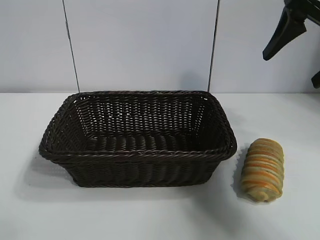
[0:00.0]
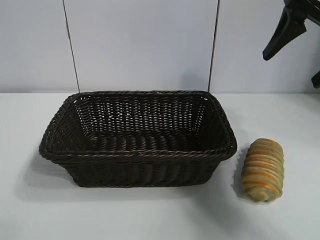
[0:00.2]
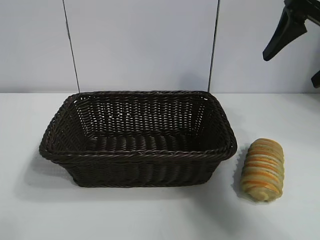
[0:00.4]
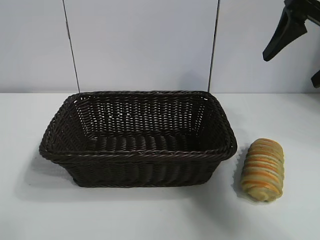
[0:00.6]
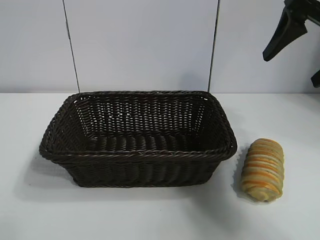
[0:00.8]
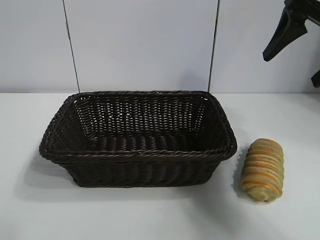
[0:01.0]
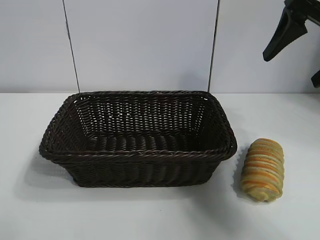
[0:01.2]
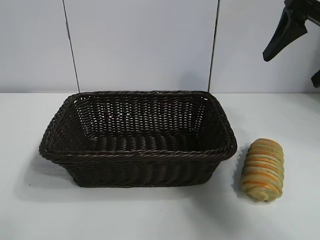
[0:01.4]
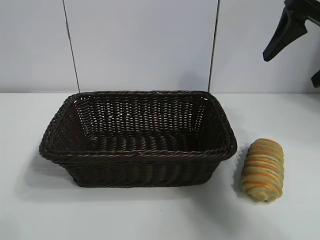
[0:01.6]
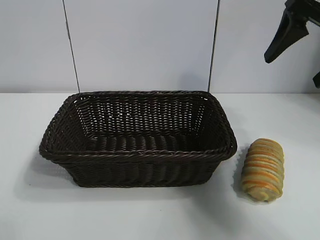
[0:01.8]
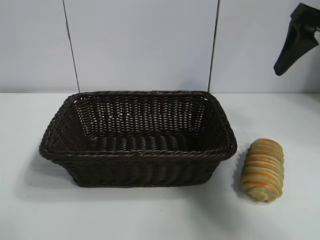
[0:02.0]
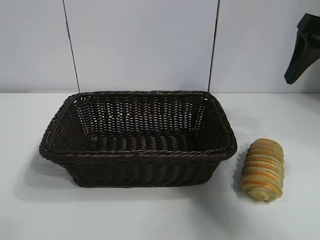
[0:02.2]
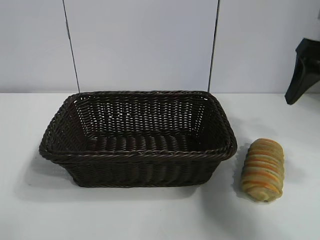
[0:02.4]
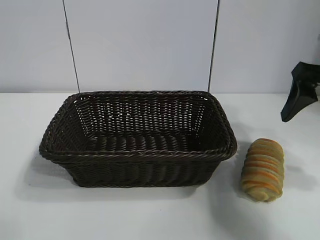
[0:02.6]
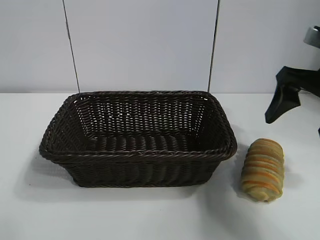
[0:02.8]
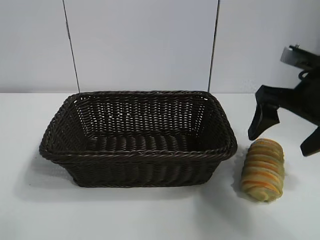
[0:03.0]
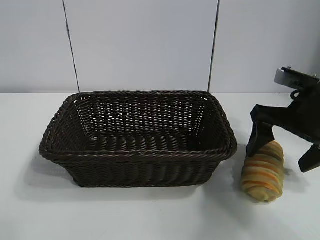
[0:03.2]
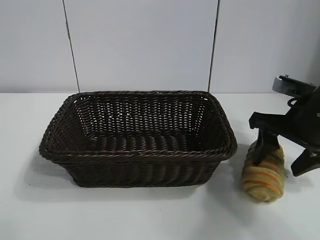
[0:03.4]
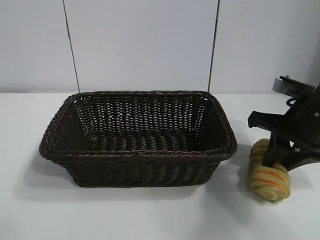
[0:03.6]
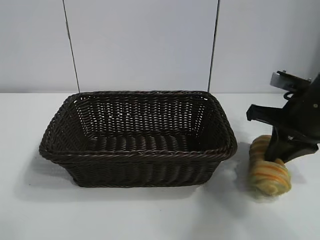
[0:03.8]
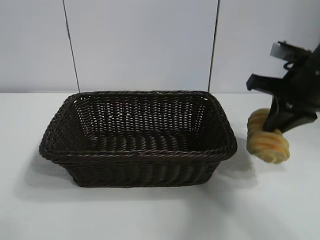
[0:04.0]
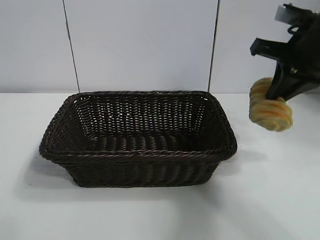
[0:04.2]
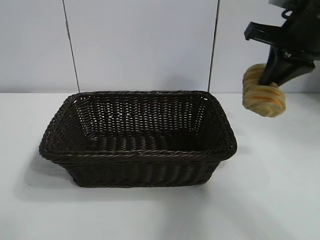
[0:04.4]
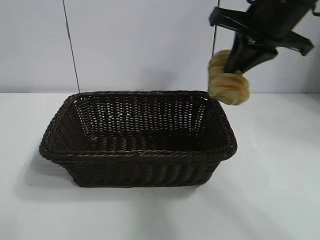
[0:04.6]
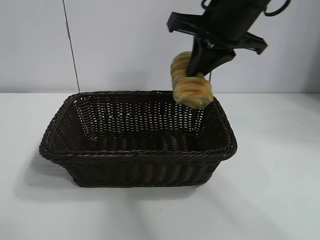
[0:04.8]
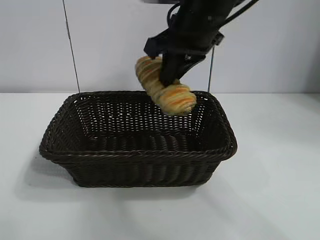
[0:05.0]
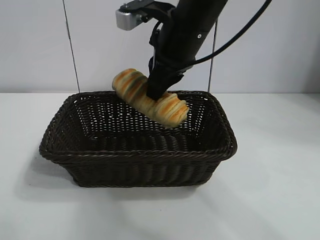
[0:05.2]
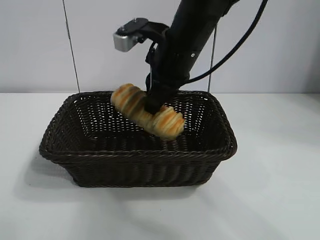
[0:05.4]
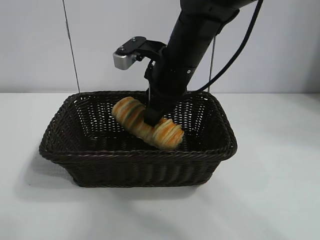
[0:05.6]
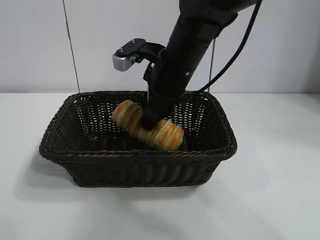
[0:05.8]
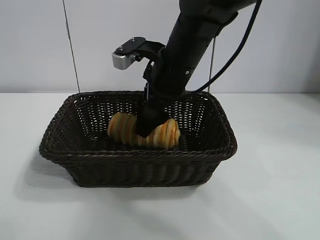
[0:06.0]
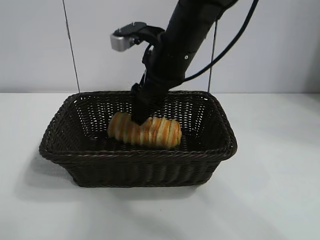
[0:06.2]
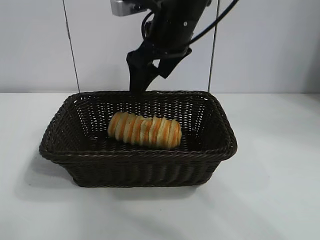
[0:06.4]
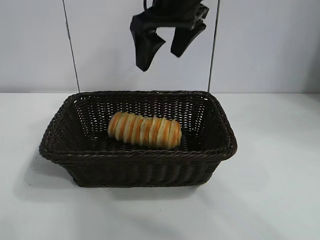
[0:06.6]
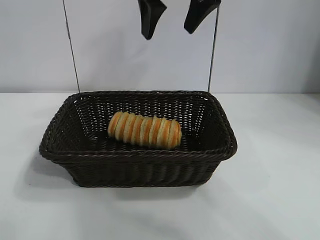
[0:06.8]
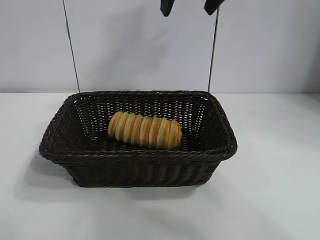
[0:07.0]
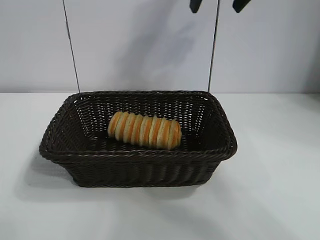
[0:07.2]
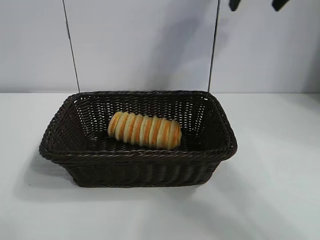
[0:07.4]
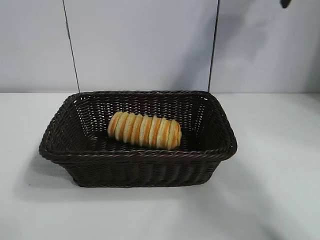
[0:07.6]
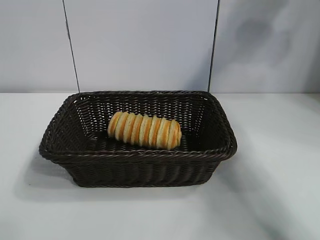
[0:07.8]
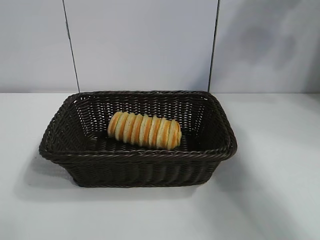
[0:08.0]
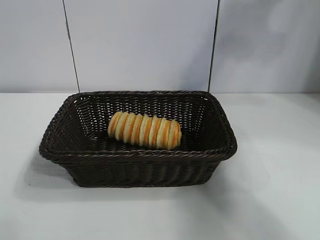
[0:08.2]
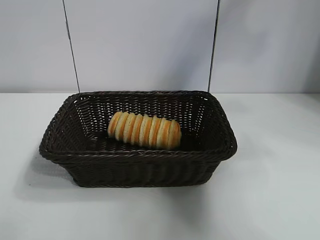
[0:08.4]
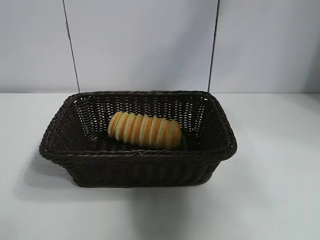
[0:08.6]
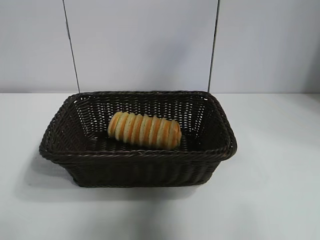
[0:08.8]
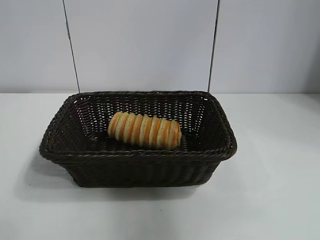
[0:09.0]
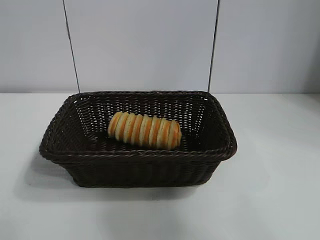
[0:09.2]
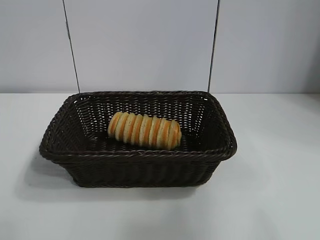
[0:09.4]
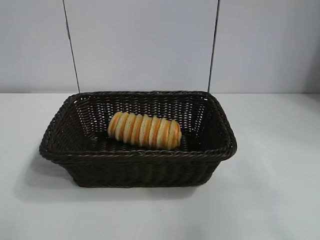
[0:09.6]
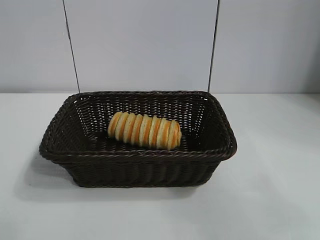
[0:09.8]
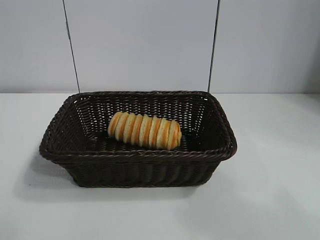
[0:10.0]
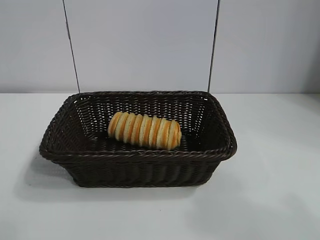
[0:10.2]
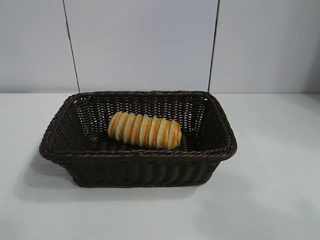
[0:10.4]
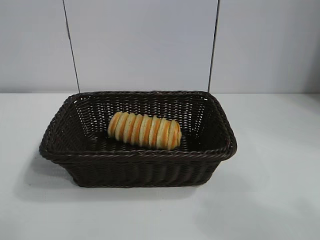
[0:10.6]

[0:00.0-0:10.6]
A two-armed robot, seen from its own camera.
Task of the whole recording: pick up the long bread and put it into the basket.
Step, 0:00.0 to 0:03.6: Grasp the long bread with right gripper.
Step, 0:03.8 to 0:06.2: Place the long bread in the basket with right gripper.
